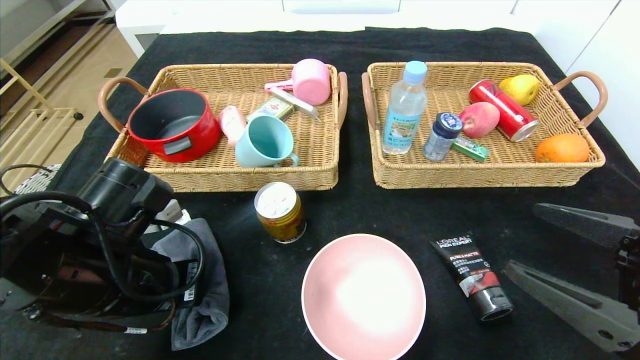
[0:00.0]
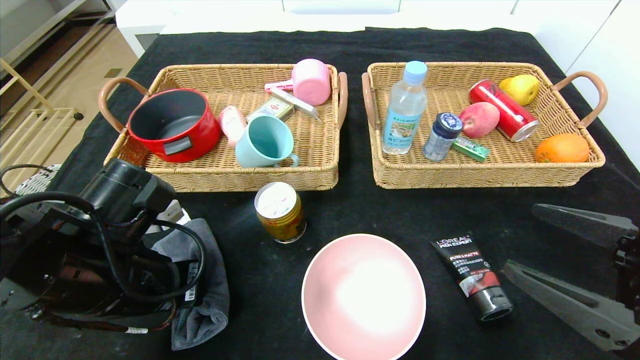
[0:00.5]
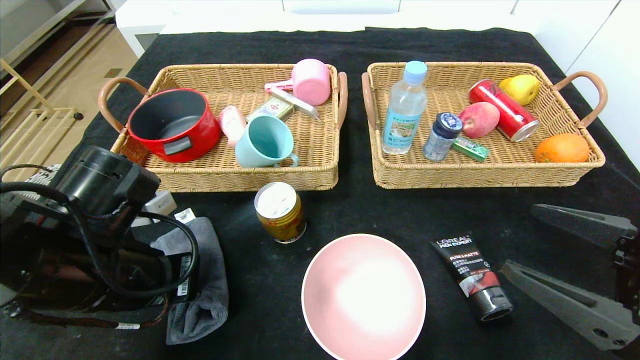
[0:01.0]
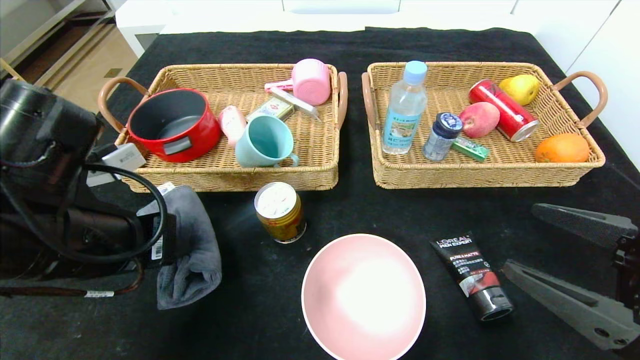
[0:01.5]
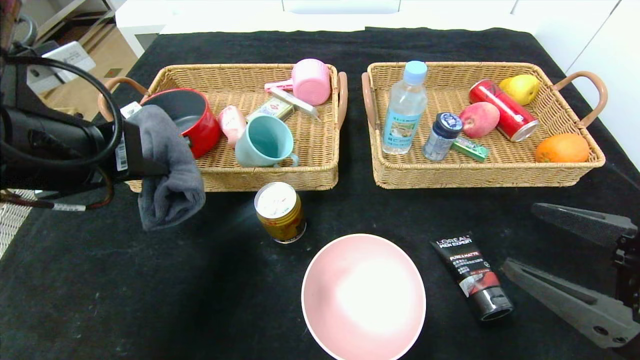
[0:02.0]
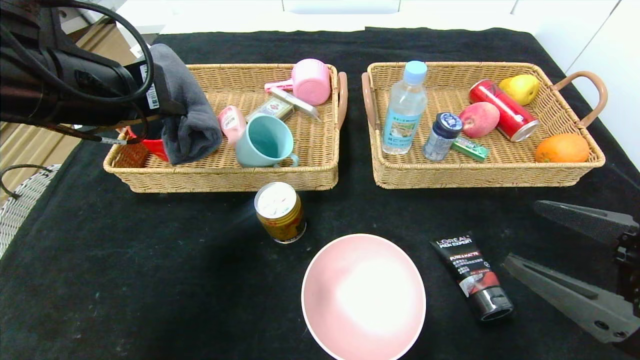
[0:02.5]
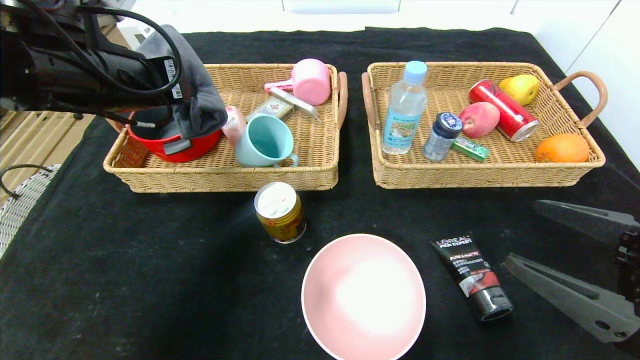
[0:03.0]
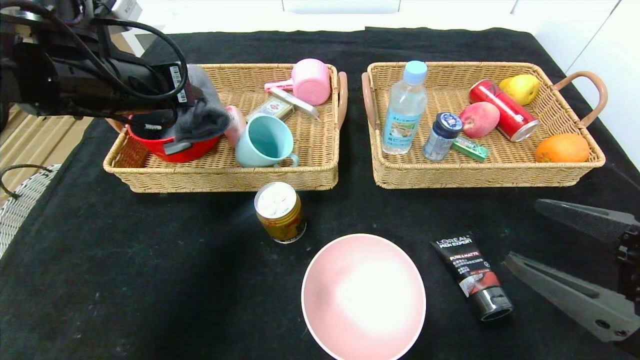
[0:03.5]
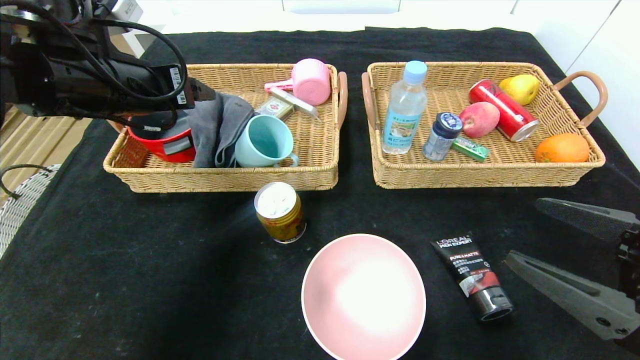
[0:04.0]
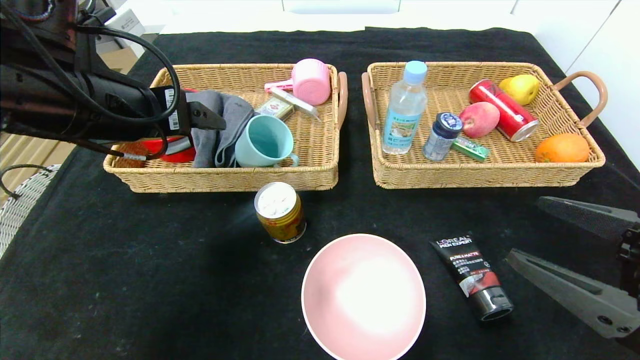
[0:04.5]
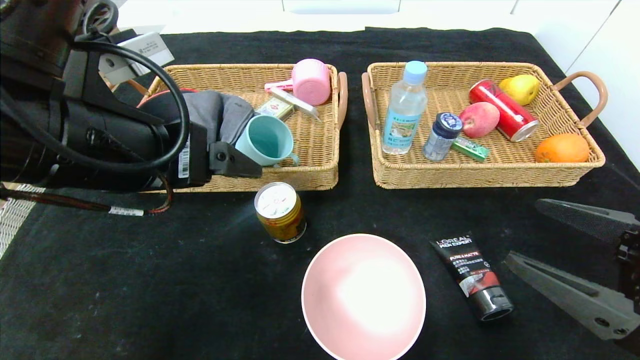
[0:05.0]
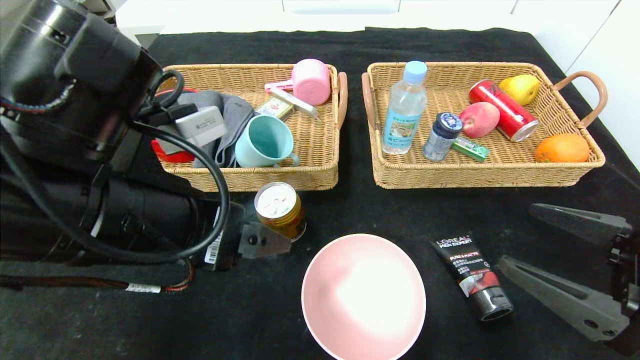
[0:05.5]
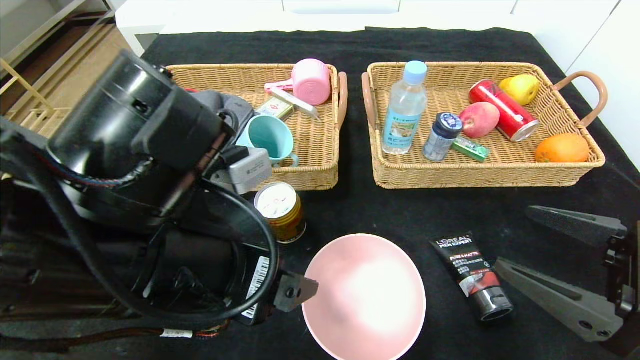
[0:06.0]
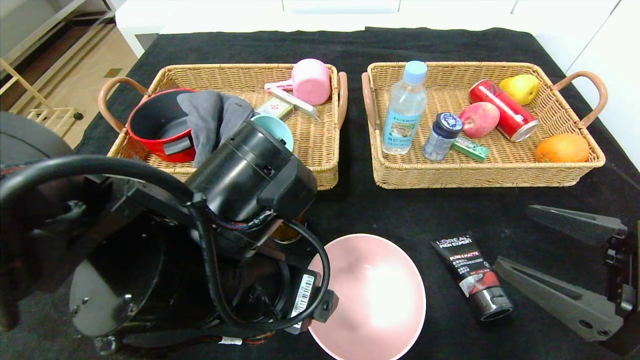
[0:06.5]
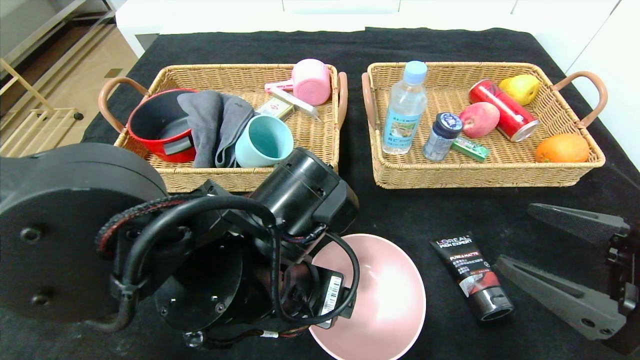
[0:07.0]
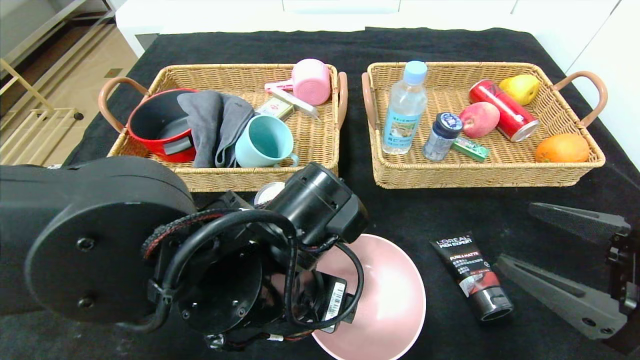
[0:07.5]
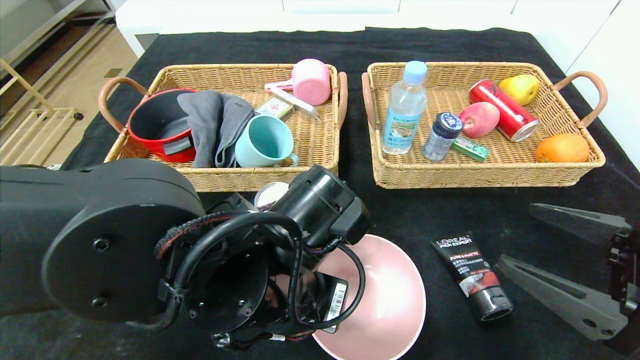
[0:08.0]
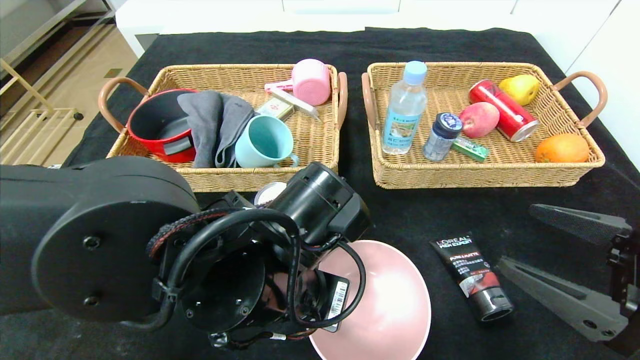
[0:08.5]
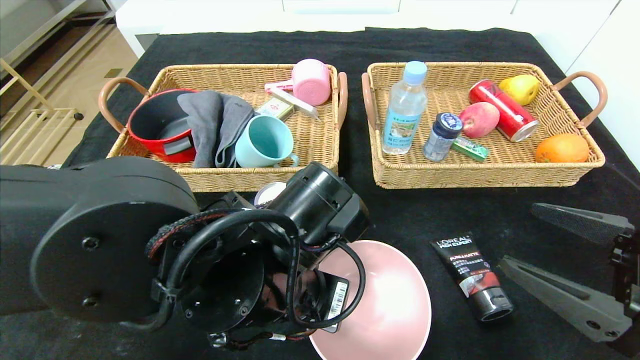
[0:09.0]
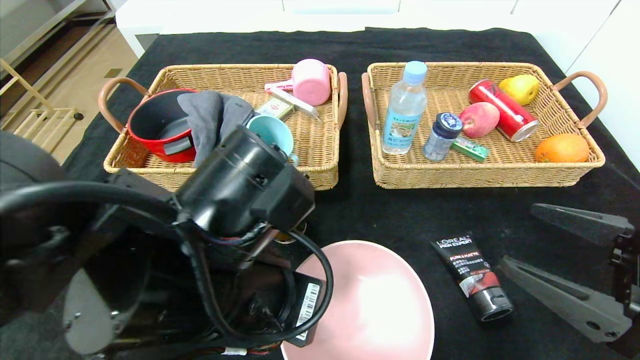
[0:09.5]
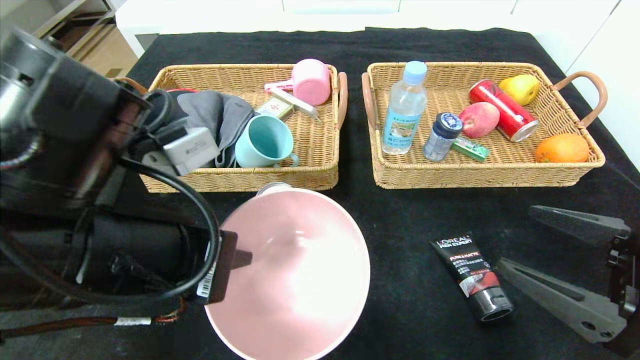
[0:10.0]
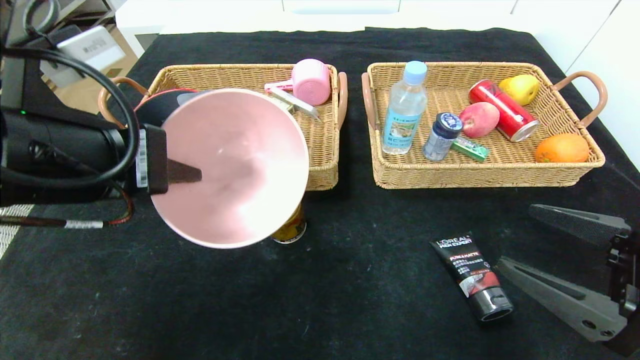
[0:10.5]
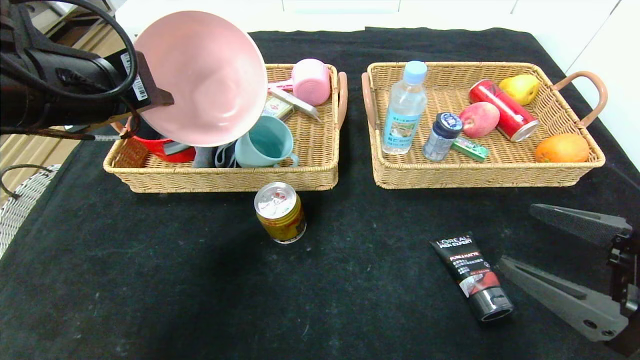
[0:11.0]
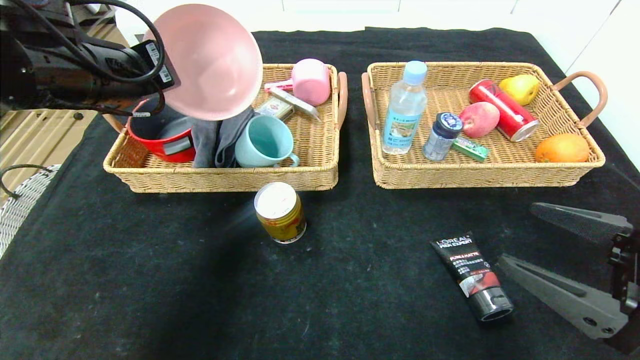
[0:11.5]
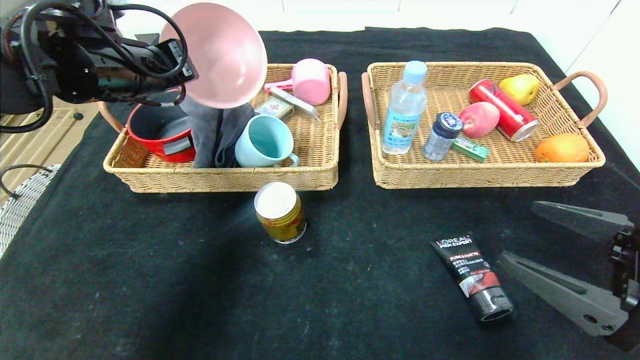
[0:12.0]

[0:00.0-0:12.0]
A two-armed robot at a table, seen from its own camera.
Step, 0:00.0 to 0:04.0: Grasp the gray towel and put it in the left basket.
0:00.0 to 0:02.0: The left gripper heads upward, covering some 15 cm.
0:02.0 to 0:04.0: The left gripper shifts some 10 cm forward, and opens its fingers.
0:04.0 to 0:06.0: The left gripper moves backward, to the right and downward, about 20 cm.
0:06.0 to 0:08.0: The left gripper goes approximately 10 cm downward and to the right, and closes up.
0:08.0 to 0:10.0: The left gripper travels to the left and upward by roughly 15 cm.
0:10.0 to 0:12.0: The left gripper goes roughly 20 cm forward and to the left.

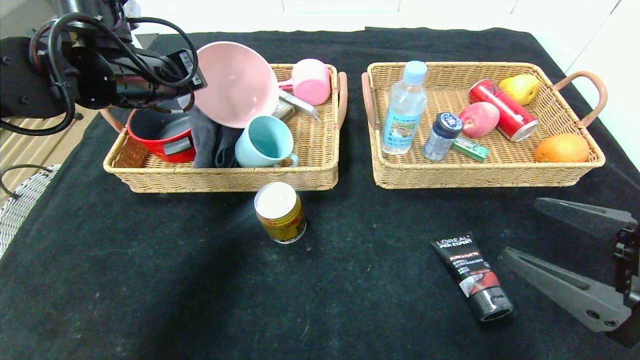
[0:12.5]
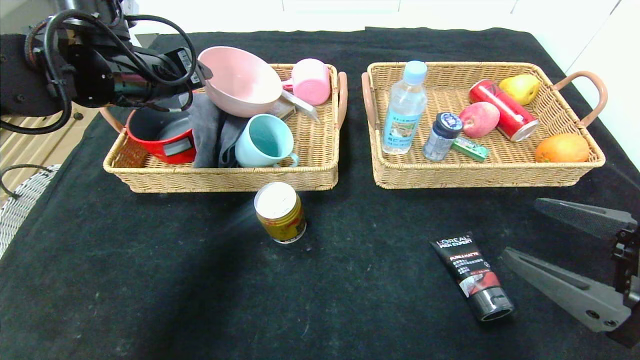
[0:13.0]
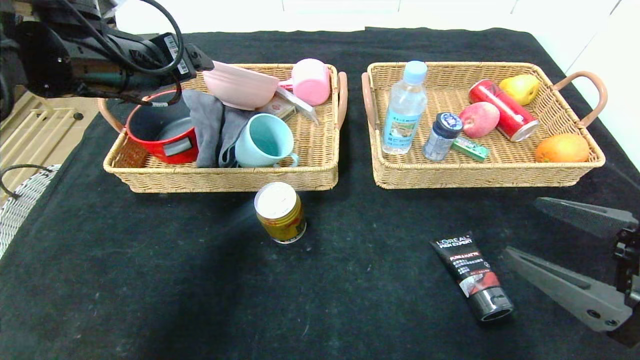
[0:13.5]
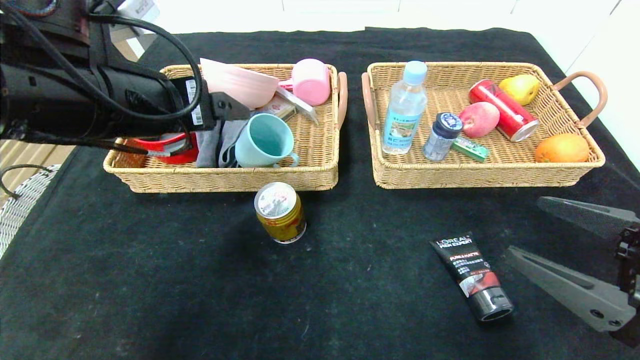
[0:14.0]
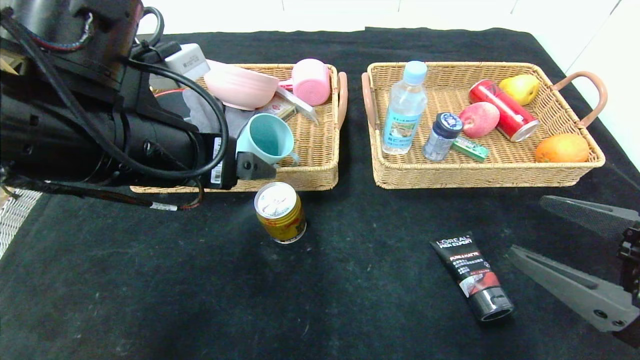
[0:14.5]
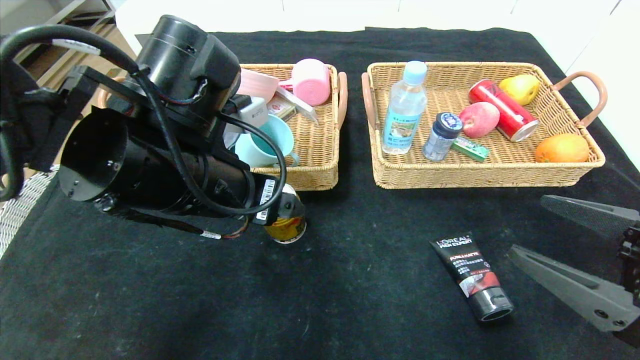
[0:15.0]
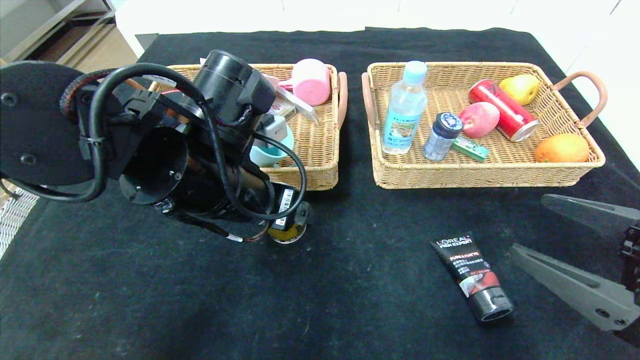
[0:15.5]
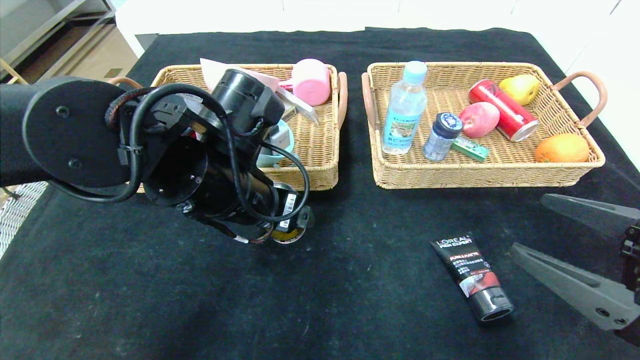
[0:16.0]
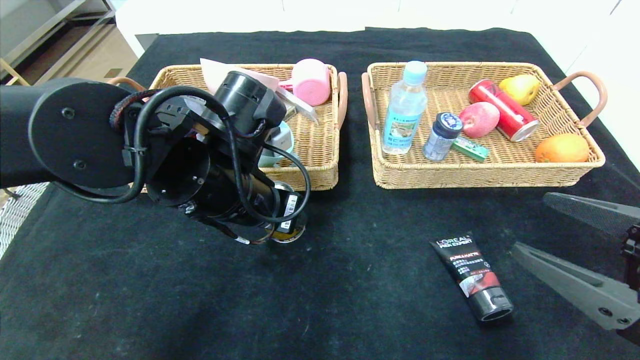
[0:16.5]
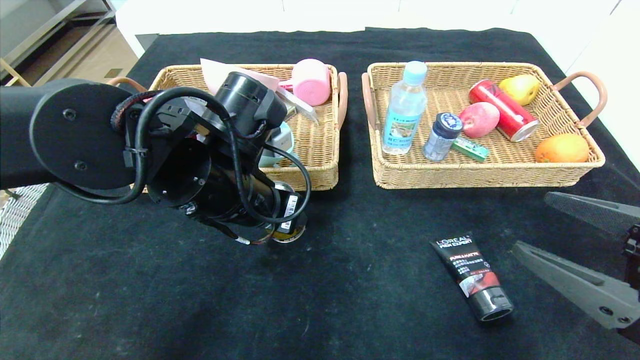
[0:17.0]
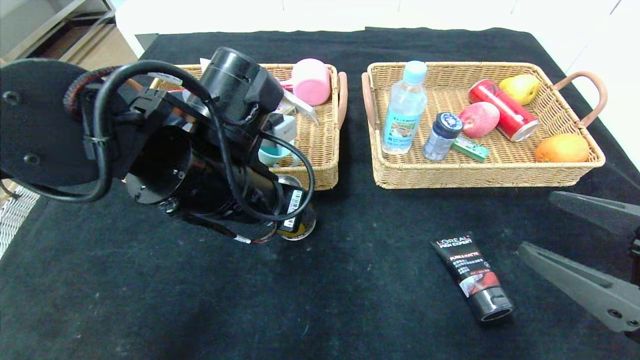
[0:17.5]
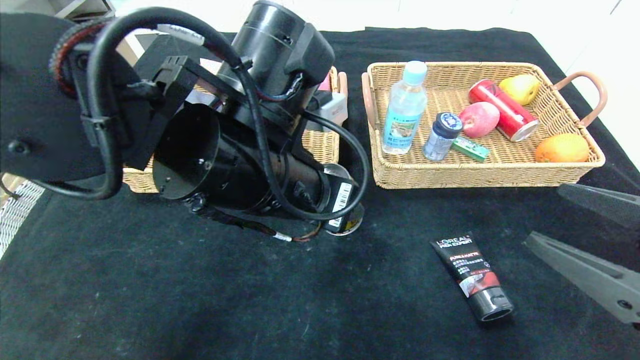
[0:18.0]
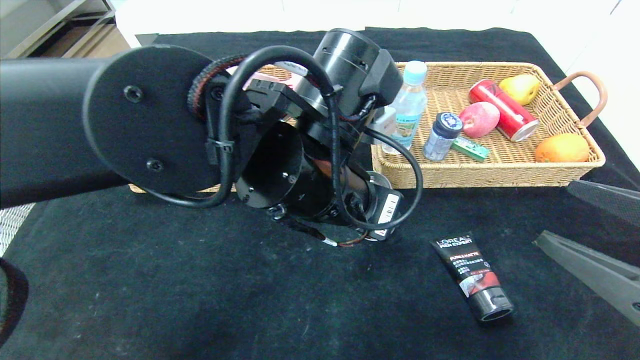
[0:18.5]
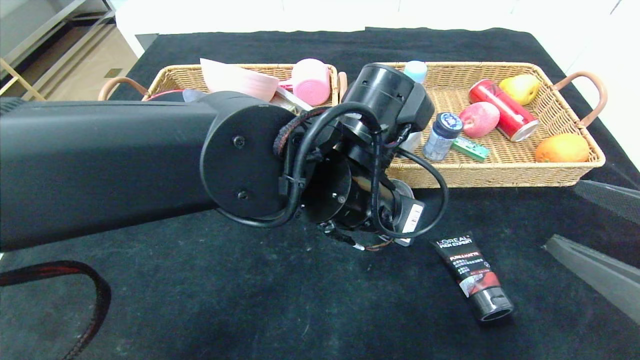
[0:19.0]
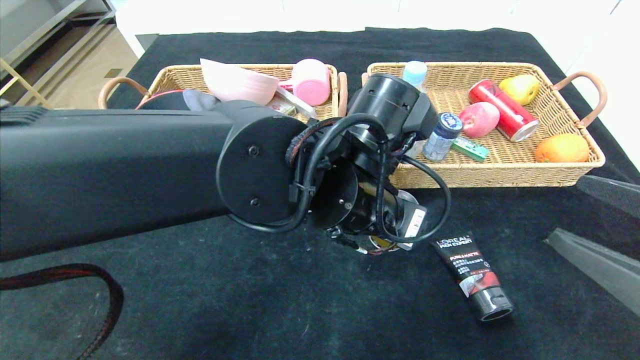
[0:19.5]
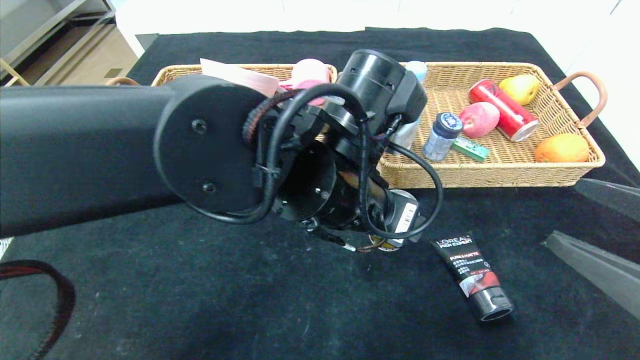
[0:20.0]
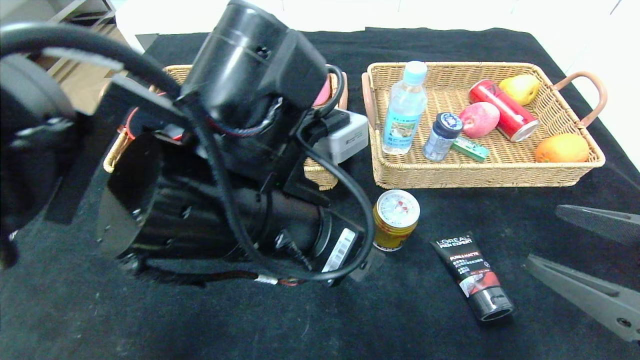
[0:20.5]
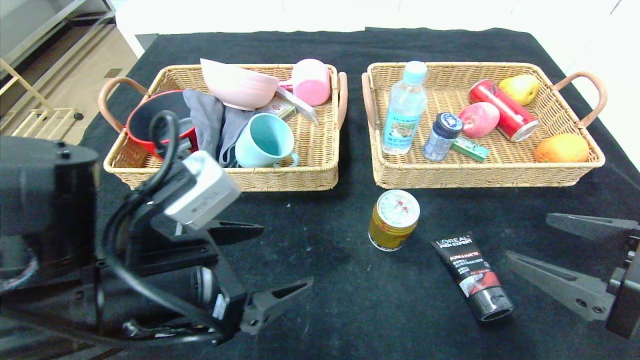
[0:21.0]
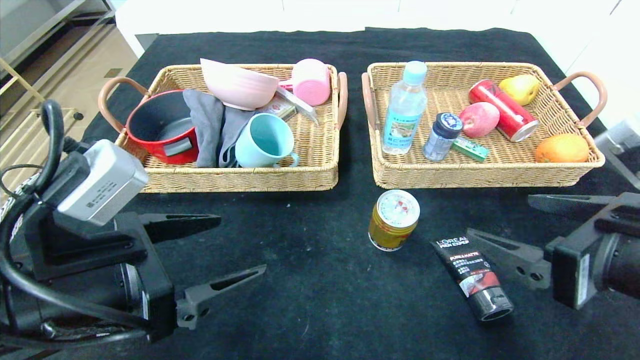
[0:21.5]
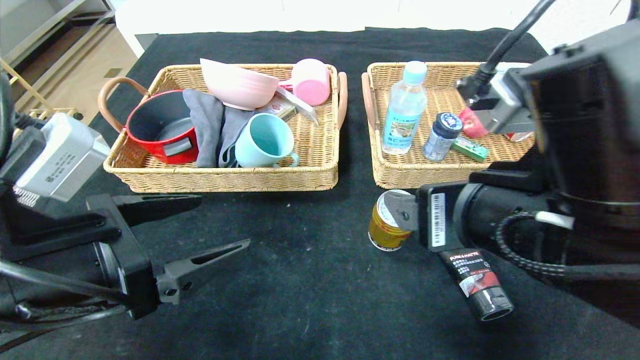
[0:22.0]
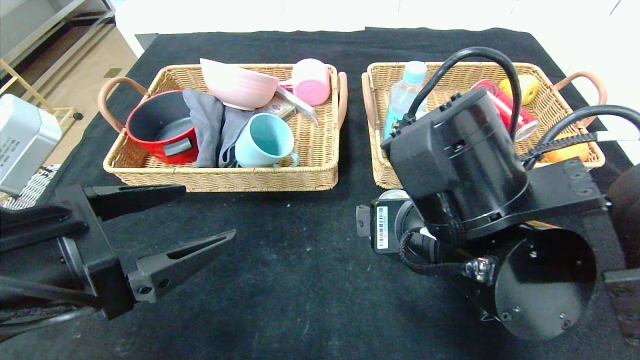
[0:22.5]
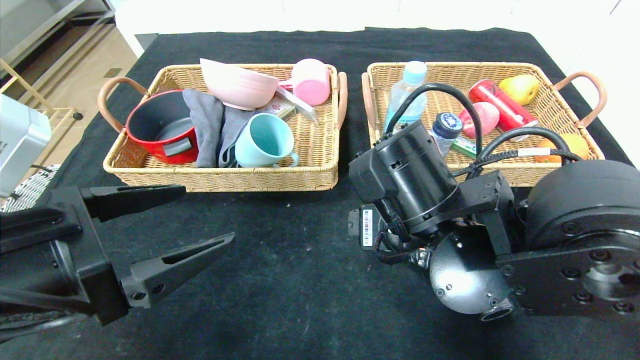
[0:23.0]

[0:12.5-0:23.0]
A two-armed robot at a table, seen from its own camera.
Step, 0:13.0 to 0:20.0: Place the Red Bull in the center of the table.
0:12.5 to 0:14.5: The left gripper goes some 15 cm backward and to the right, and opens up.
0:14.5 to 0:16.5: The left gripper is displaced downward and to the right by some 10 cm.
0:16.5 to 0:19.0: The left gripper is displaced to the right by some 10 cm.
0:19.0 to 0:21.0: The left gripper heads to the left and backward, covering about 20 cm, and opens up.
0:21.0 to 0:23.0: The right gripper travels to the left and forward by roughly 20 cm; the left gripper moves to the left, some 5 cm.
